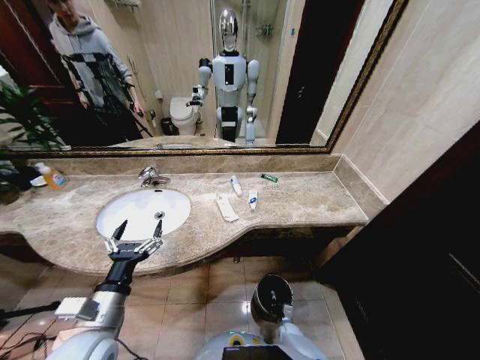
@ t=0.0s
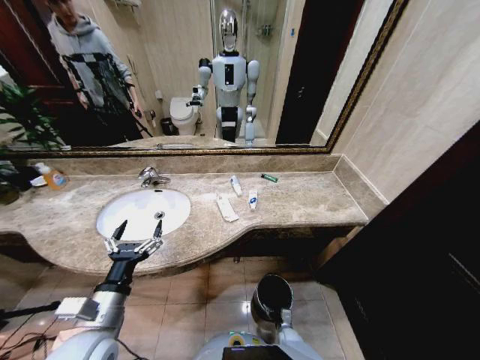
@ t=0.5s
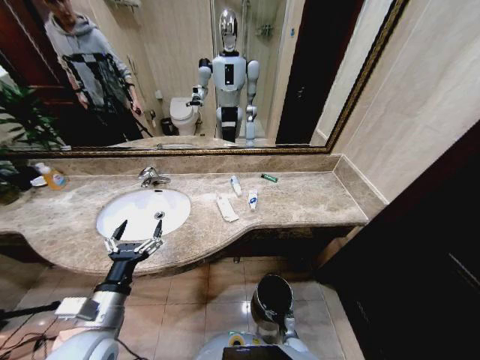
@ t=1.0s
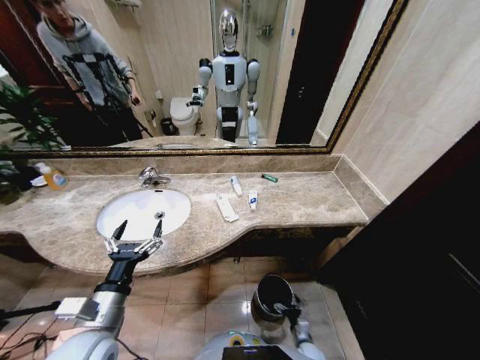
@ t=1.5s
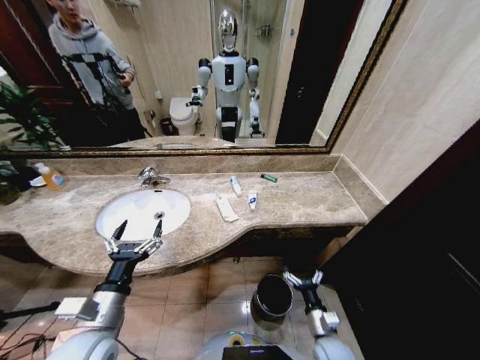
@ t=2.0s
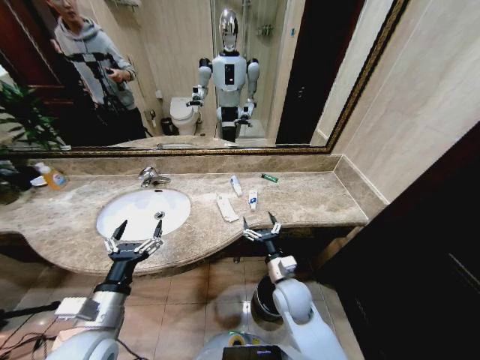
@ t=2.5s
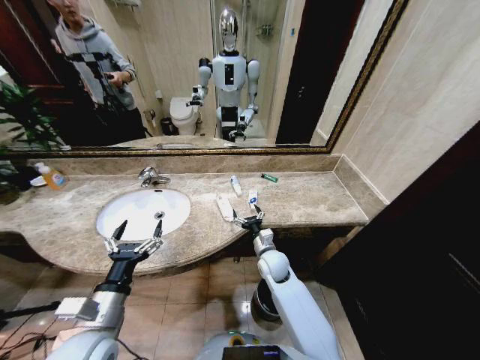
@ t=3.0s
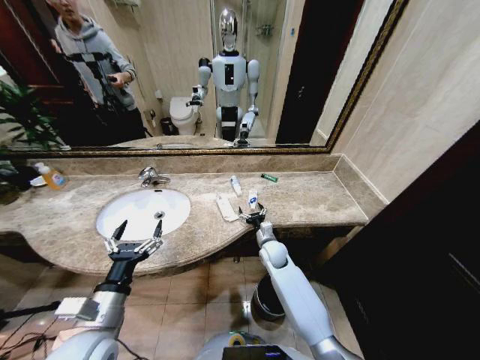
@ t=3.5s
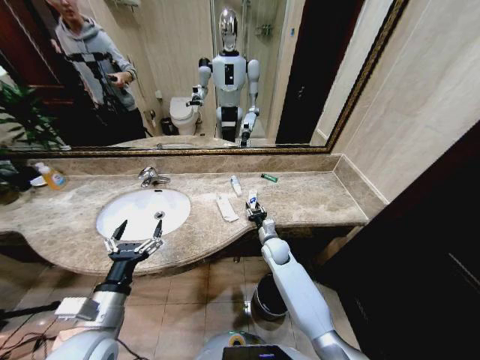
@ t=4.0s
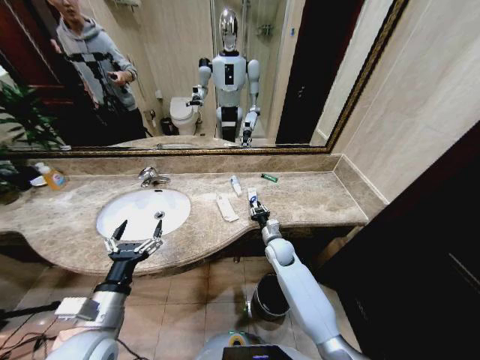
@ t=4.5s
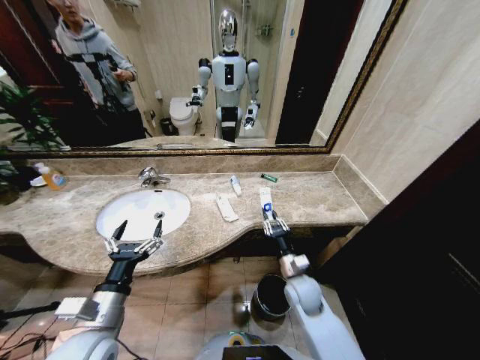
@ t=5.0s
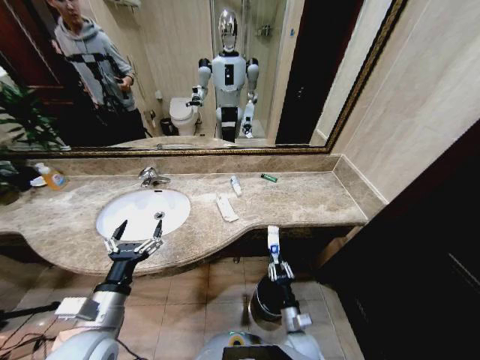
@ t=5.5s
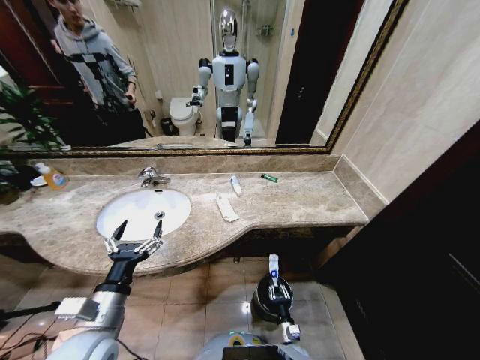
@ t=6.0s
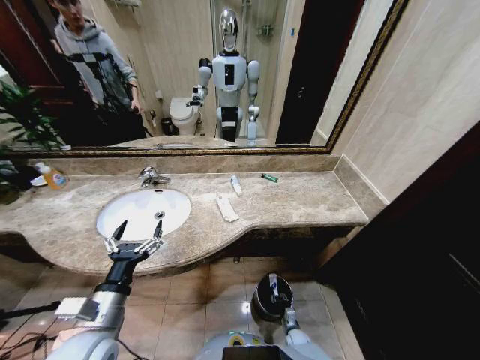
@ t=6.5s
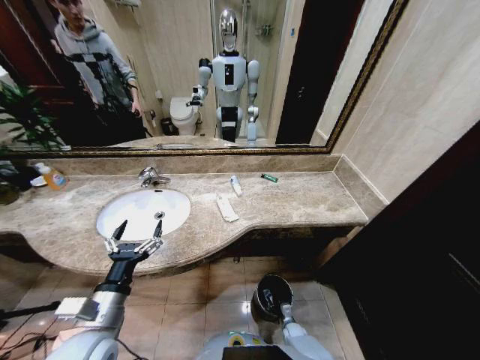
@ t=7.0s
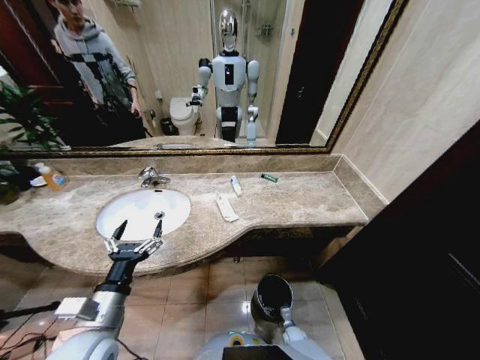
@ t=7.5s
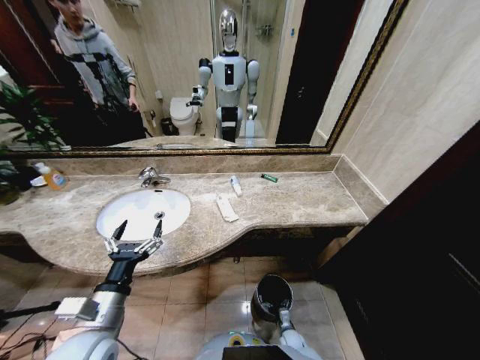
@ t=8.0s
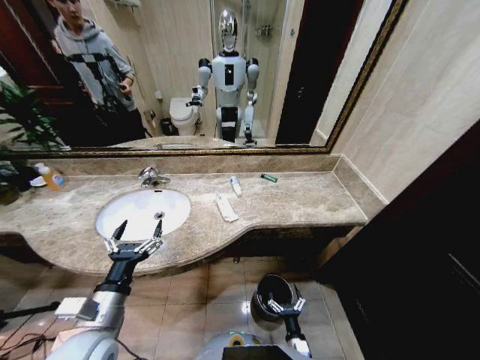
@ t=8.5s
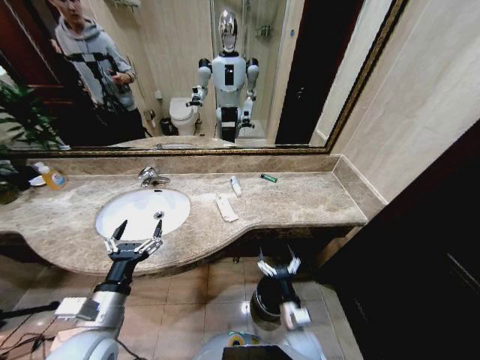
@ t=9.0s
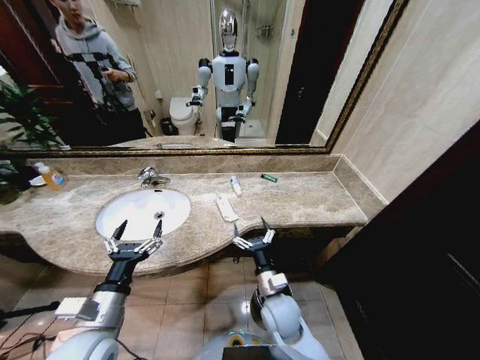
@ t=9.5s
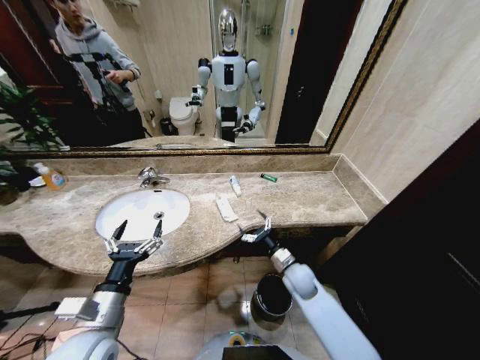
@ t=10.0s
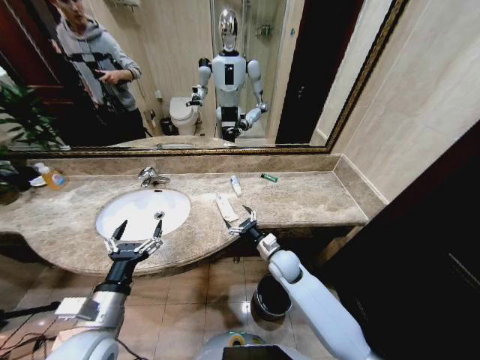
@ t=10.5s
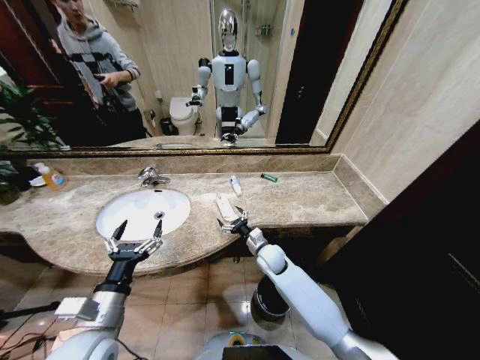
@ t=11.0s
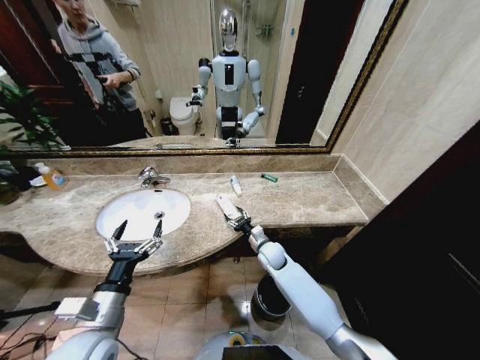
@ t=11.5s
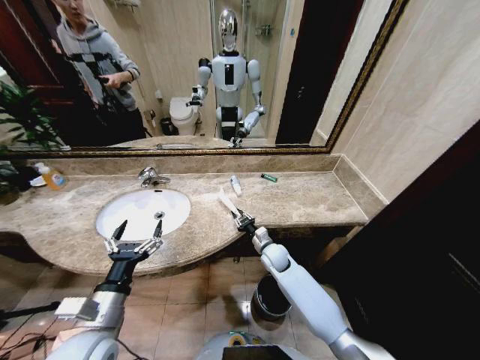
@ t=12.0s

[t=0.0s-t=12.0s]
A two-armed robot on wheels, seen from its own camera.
Task of the whole recording: Pick up the trash from the sink and place it in the trash bin.
t=0.0s to t=2.0s: The right gripper goes roughly 25 cm upward, and opens.
t=2.0s to t=4.0s: The right gripper shifts approximately 30 cm forward, and closes.
t=4.0s to t=6.0s: The right gripper moves backward and downward, about 35 cm.
t=6.0s to t=8.0s: The right gripper is displaced downward by about 5 cm, and opens.
t=8.0s to t=10.0s: The right gripper shifts approximately 35 cm upward and forward.
t=10.0s to t=12.0s: The right gripper travels forward and to the left by about 10 cm, and closes its fingers.

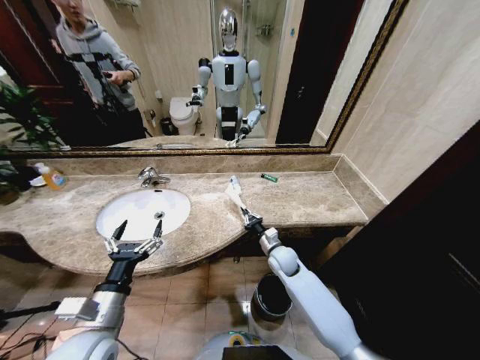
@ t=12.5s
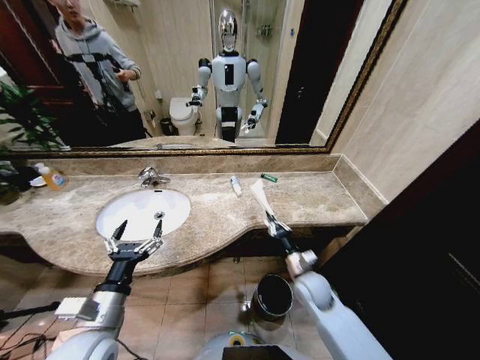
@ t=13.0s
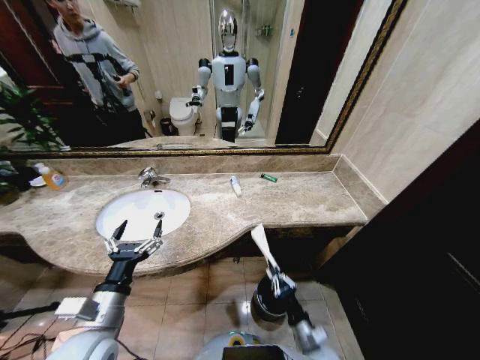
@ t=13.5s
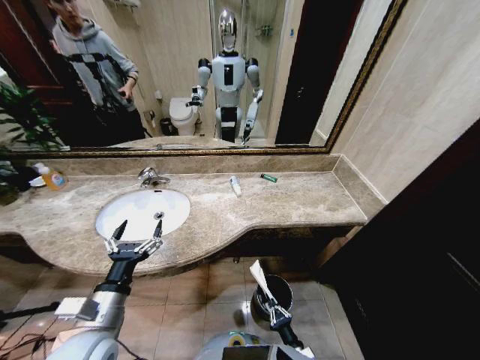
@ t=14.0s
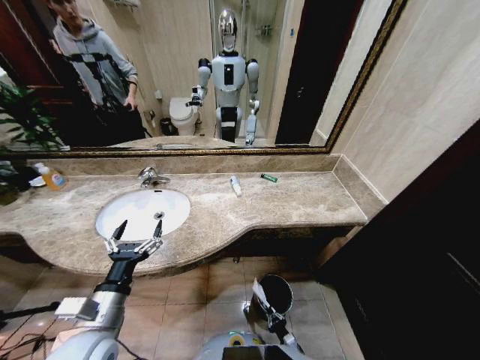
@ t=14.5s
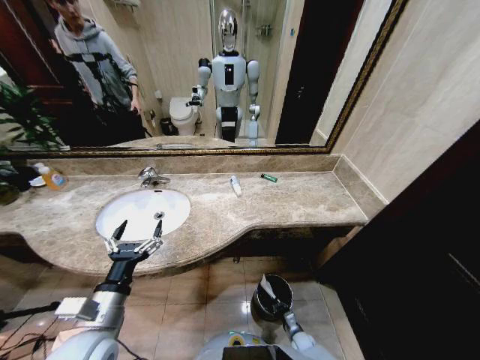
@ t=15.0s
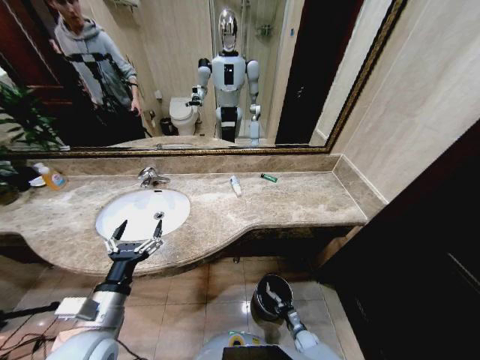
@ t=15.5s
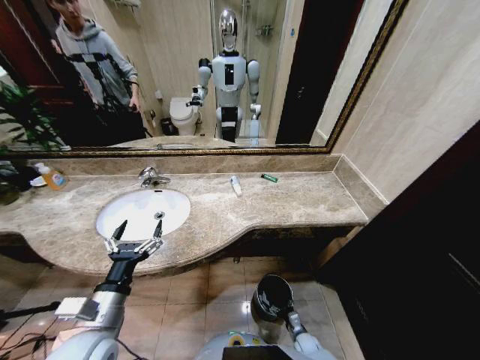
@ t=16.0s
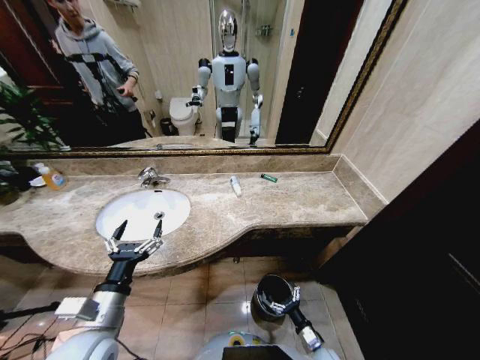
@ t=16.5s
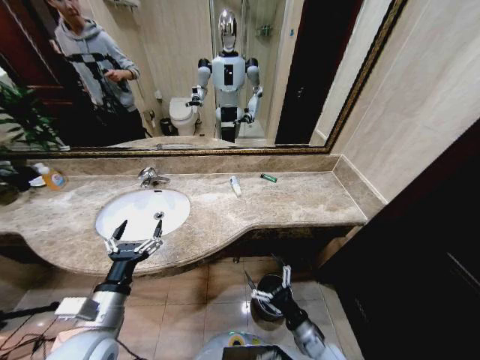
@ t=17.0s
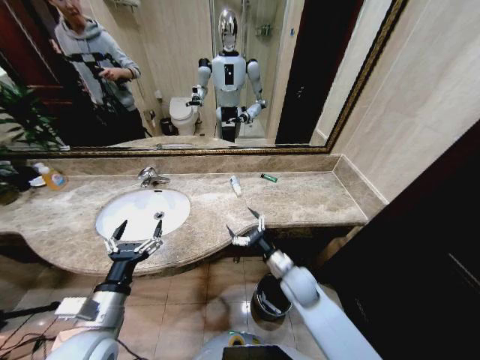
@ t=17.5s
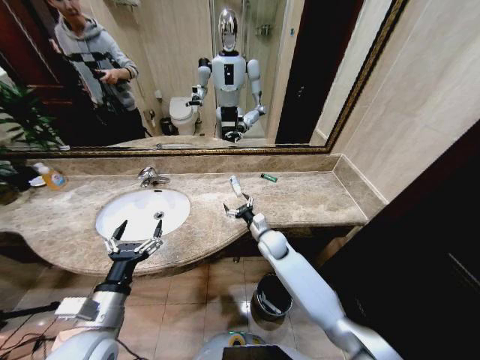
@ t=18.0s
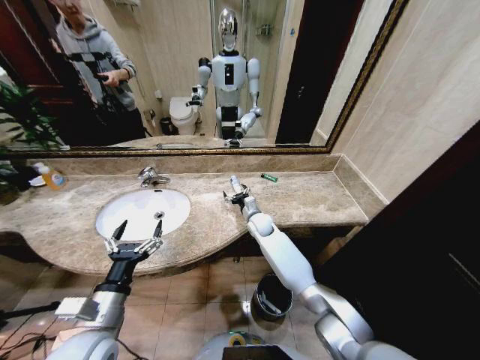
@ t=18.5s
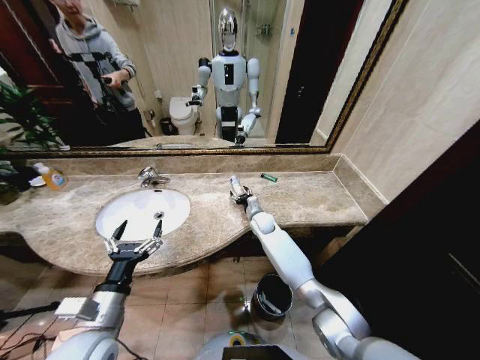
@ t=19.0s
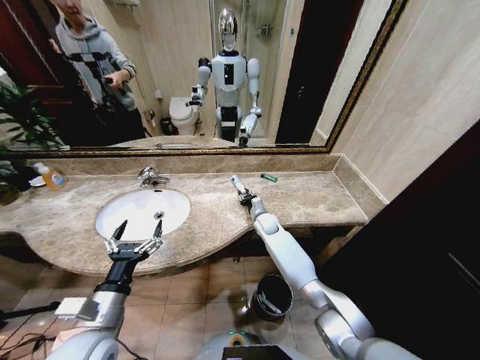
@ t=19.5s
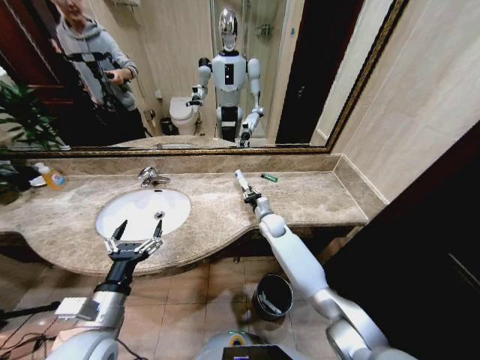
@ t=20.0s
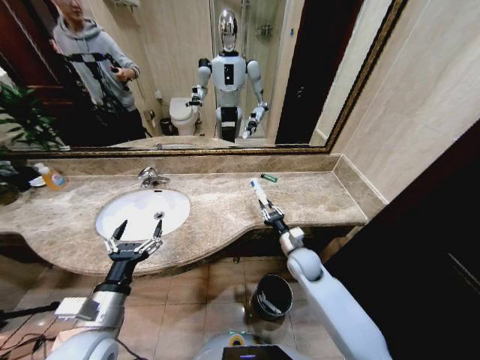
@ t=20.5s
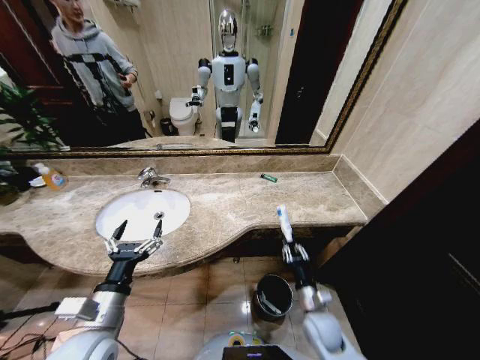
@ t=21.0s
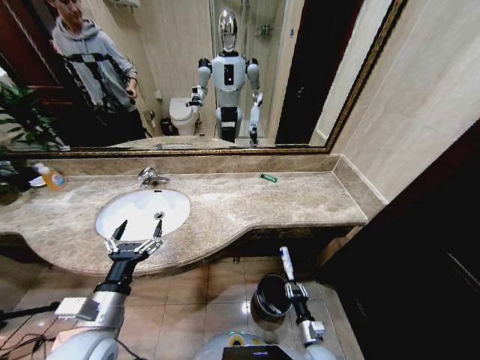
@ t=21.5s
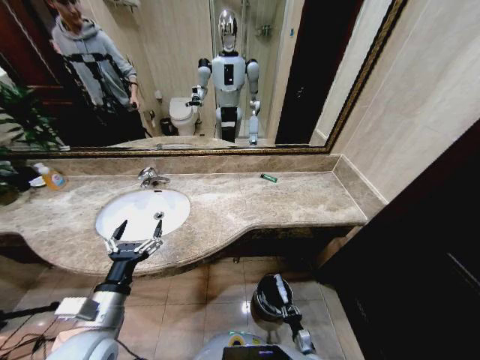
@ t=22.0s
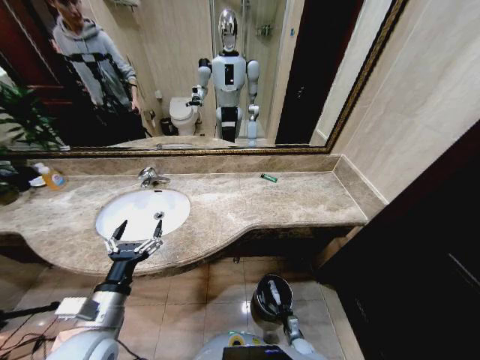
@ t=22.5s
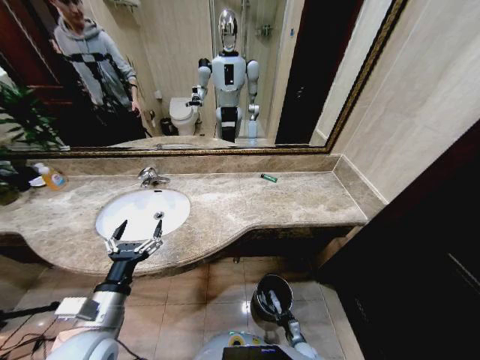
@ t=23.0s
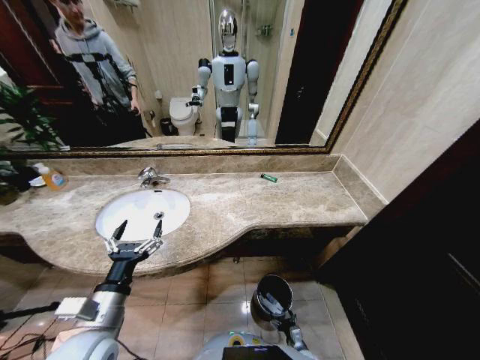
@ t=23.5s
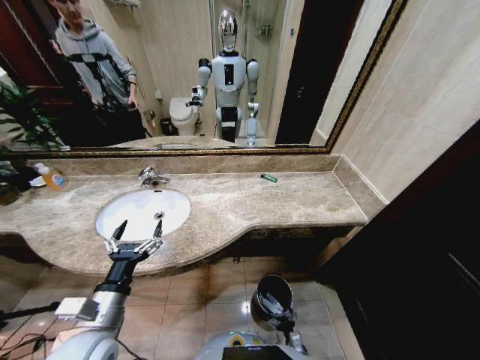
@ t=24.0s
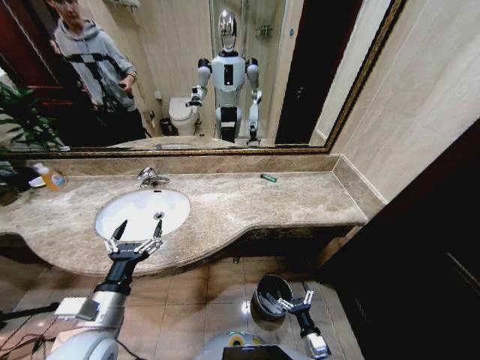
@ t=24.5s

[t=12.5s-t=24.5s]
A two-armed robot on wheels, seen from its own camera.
Task of the whole recording: Pick up the trash from the sink and place it in the trash bin.
t=12.5s to t=14.5s: The right gripper is displaced downward and backward by approximately 40 cm.
t=14.5s to t=16.5s: The right gripper shifts approximately 10 cm upward, and opens.
t=16.5s to t=18.5s: The right gripper heads forward, upward and to the left, covering approximately 50 cm.
t=18.5s to t=20.5s: The right gripper heads backward and to the right, covering about 20 cm, and closes up.
t=20.5s to t=22.5s: The right gripper goes roughly 40 cm downward and backward.
t=22.5s to t=24.5s: The right gripper moves upward, some 20 cm, and opens its fingers.

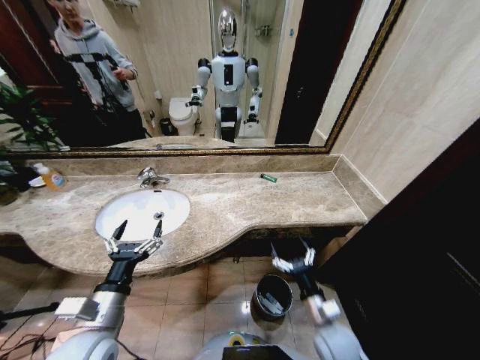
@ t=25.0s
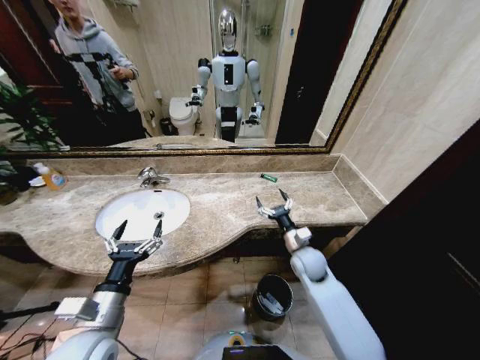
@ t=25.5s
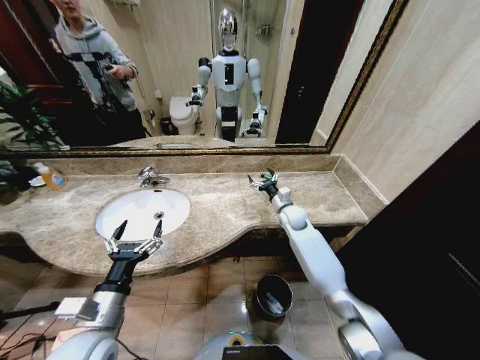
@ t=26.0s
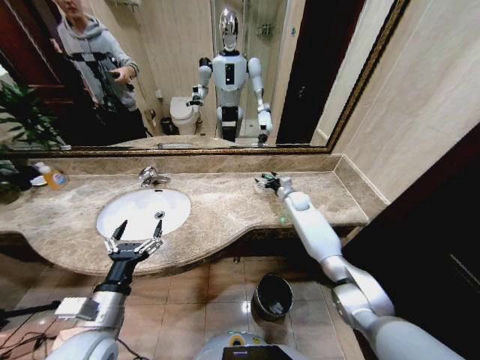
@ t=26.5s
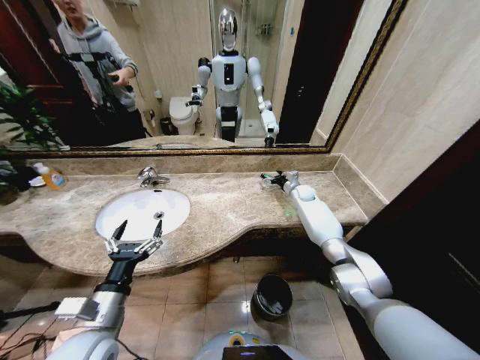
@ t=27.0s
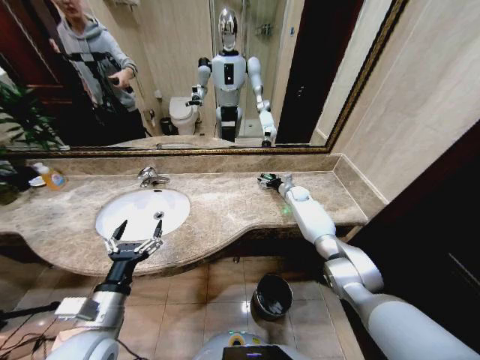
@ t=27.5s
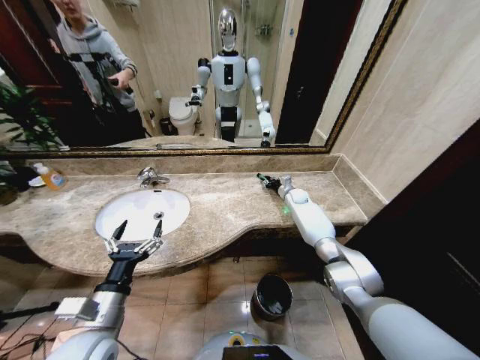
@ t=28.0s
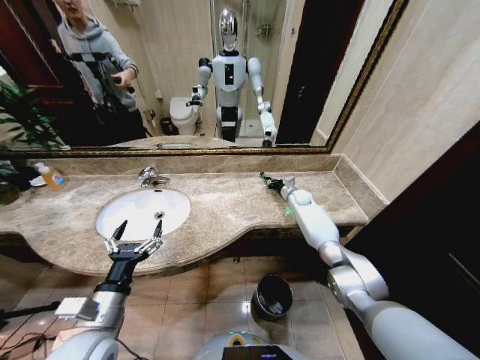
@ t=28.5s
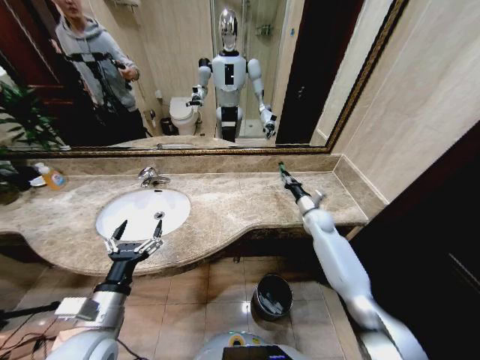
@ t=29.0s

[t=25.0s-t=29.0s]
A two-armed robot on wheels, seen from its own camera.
Task of the whole recording: Pick up the trash from the sink and place it in the trash bin.
t=25.0s to t=27.0s: The right gripper heads forward, covering roughly 50 cm.
t=27.0s to t=29.0s: The right gripper is displaced backward by roughly 15 cm, and closes.
